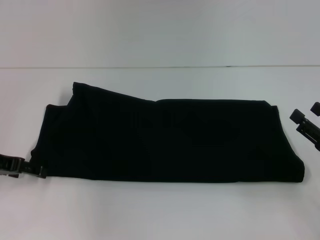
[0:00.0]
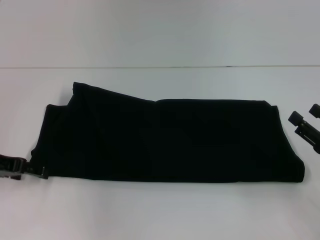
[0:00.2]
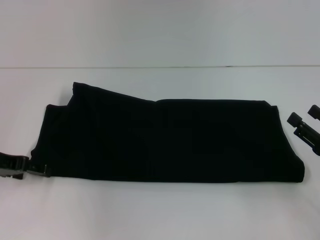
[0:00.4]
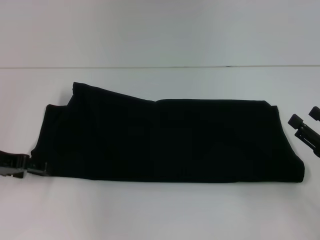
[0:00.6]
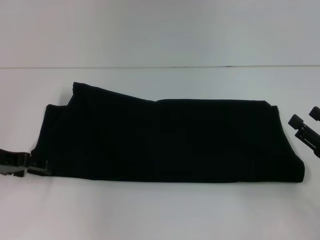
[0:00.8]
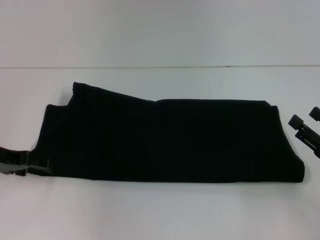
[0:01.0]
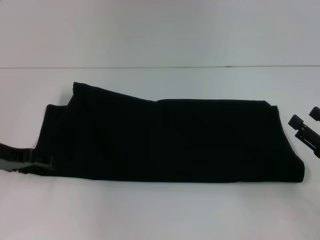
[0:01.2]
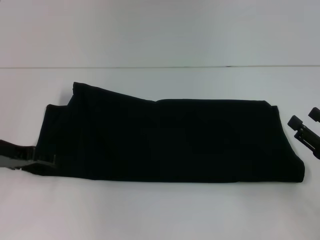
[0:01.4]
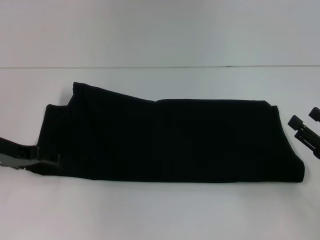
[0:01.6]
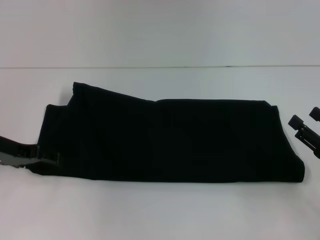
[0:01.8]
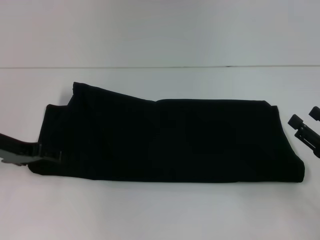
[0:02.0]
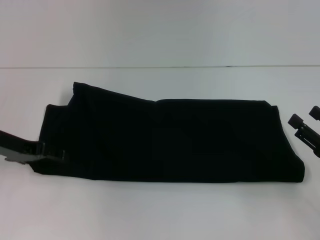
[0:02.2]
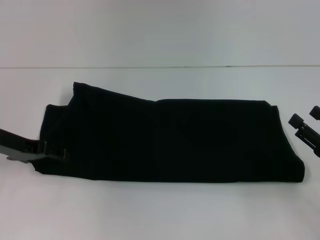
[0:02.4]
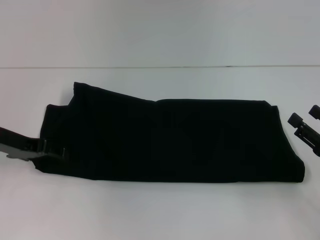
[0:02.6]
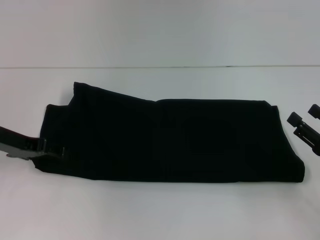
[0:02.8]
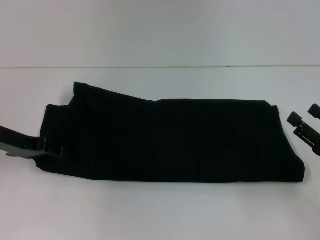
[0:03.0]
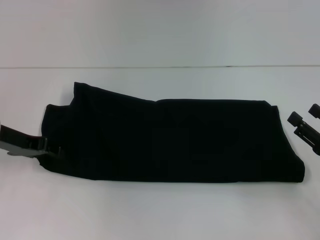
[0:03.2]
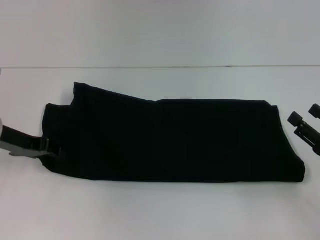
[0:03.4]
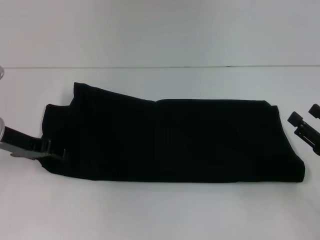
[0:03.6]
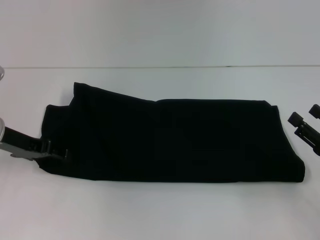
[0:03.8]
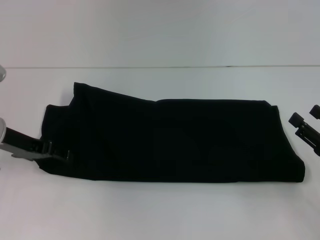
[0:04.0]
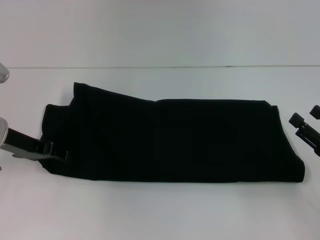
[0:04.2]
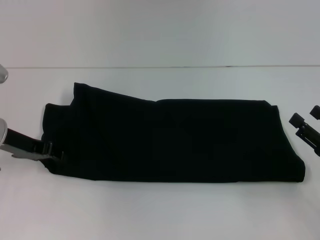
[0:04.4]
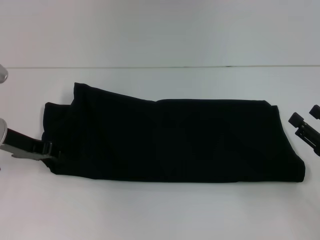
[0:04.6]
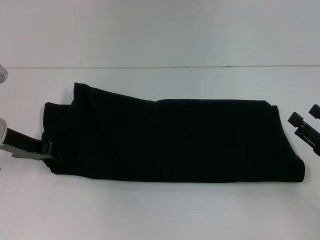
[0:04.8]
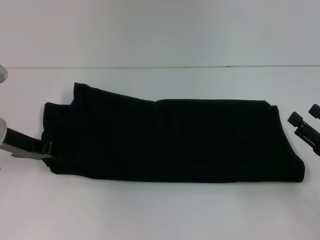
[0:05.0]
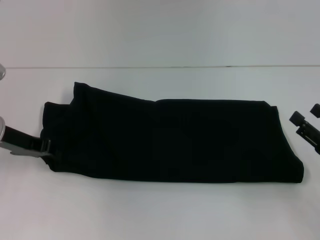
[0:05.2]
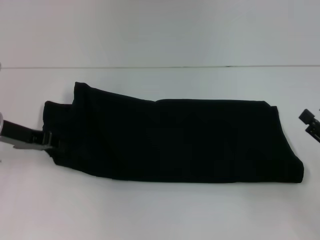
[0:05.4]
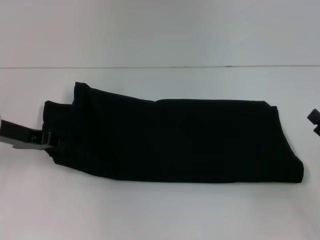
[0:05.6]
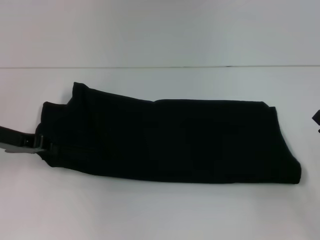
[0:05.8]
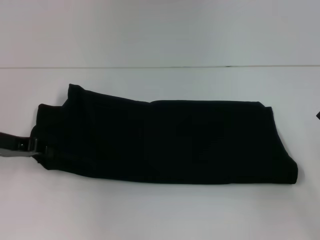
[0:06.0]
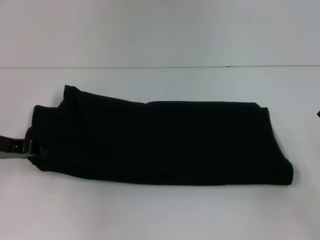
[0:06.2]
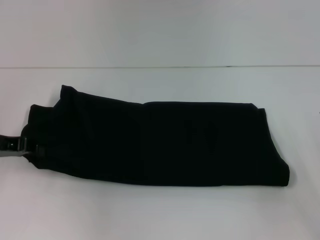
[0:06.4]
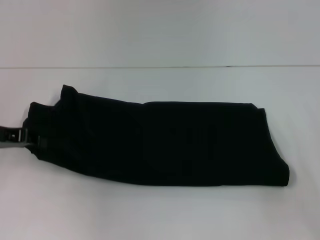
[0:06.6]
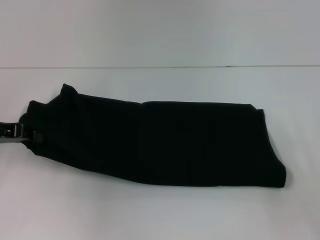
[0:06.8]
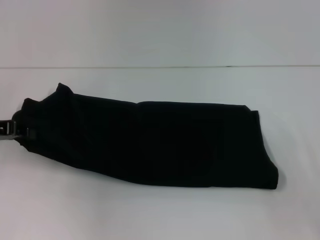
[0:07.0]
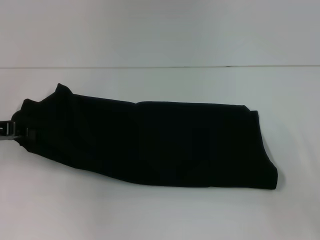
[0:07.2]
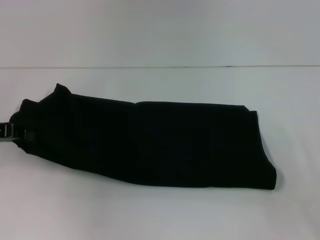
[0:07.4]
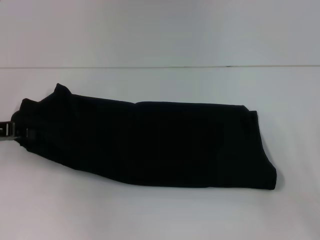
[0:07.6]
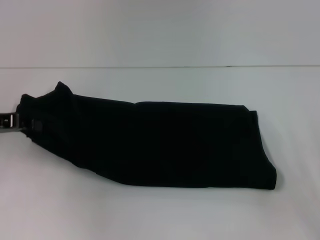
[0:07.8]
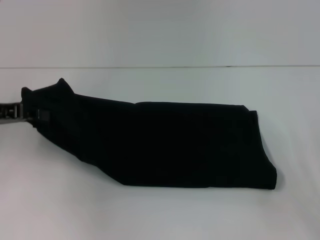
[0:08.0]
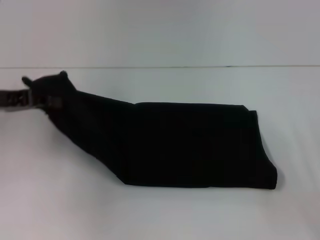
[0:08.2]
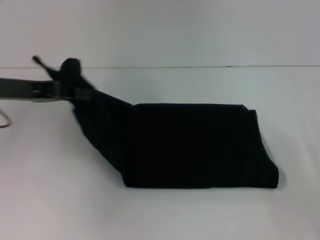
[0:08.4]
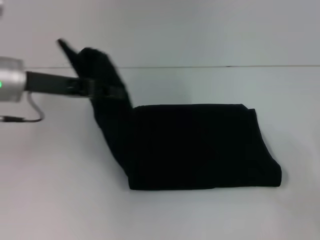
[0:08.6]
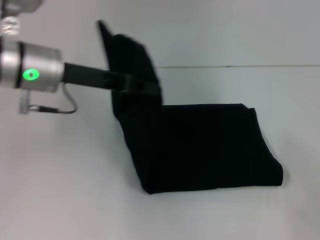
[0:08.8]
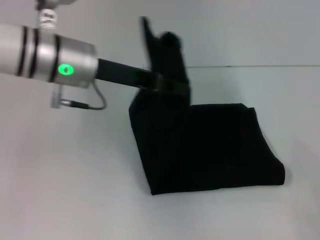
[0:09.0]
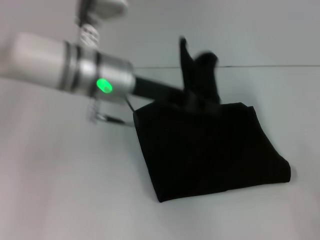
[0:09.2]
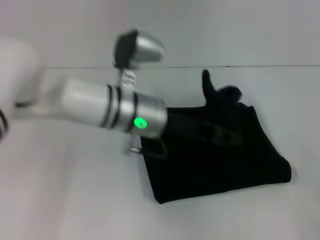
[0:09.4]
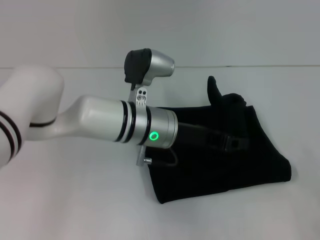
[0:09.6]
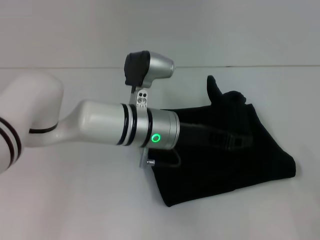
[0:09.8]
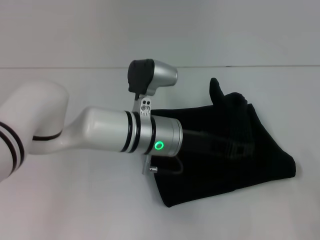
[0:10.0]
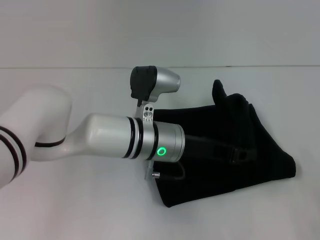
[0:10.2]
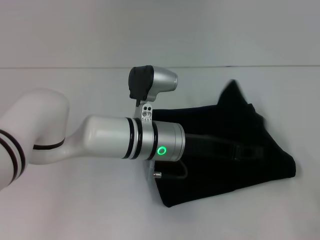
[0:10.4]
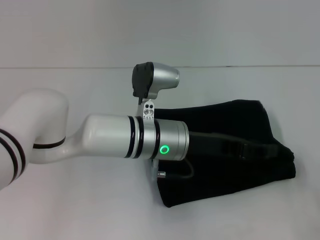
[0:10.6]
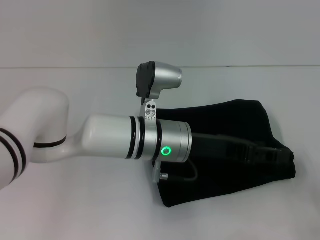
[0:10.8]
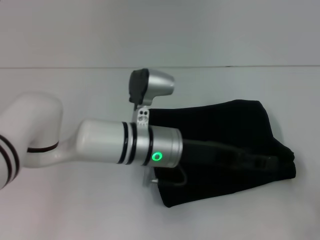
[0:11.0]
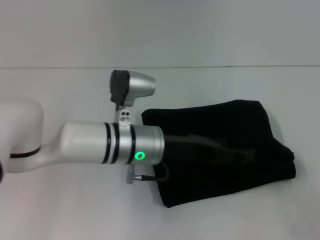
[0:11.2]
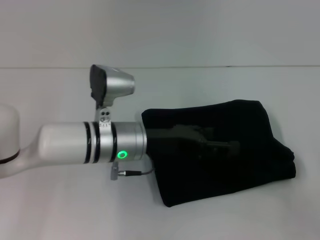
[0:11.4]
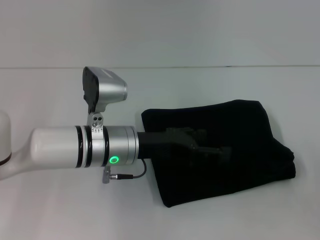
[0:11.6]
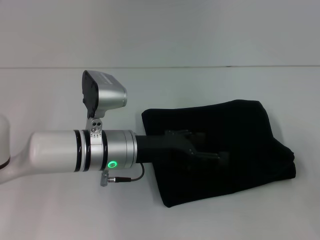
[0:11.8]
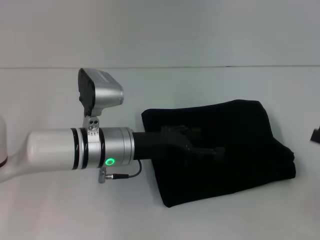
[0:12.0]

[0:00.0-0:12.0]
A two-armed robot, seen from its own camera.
Step, 0:00.0 to 0:10.8: Fold the clothes with your left hand.
0:00.0 to 0:03.0: There are only small adjustments of the grippers.
0:03.0 to 0:04.4: Neither gripper changes place.
0:04.4 to 0:06.0: The left gripper closes up.
0:06.0 to 0:07.6: The grippers make only small movements.
0:07.6 to 0:09.0: The right gripper goes approximately 5 cm backward, and closes, while the left gripper moves to the right, approximately 20 cm.
0:09.0 to 0:10.4: The left gripper goes roughly 15 cm downward and to the right.
0:10.4 to 0:12.0: The right gripper shifts about 10 cm upward and forward, and opens. The left gripper travels to the left by approximately 5 cm, and opens its fingers.

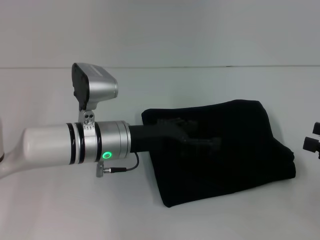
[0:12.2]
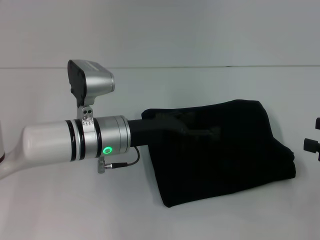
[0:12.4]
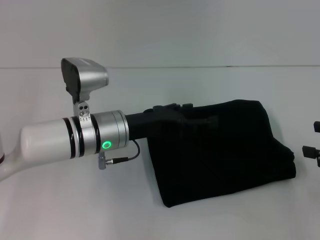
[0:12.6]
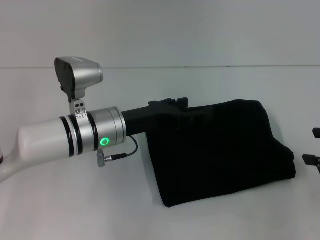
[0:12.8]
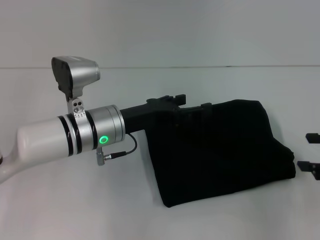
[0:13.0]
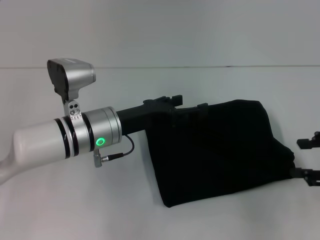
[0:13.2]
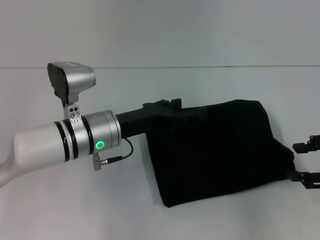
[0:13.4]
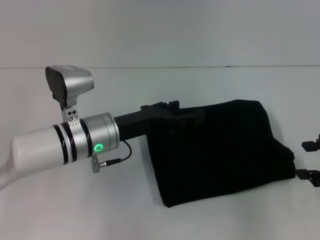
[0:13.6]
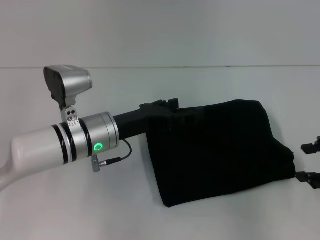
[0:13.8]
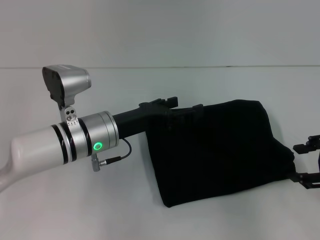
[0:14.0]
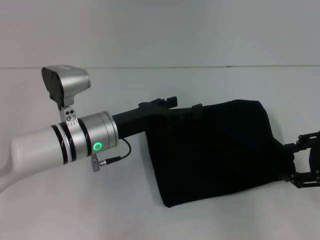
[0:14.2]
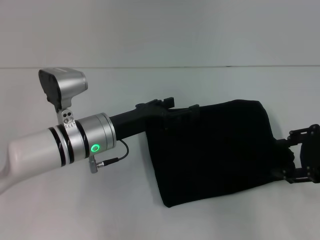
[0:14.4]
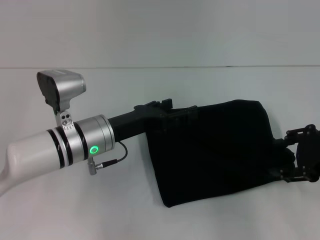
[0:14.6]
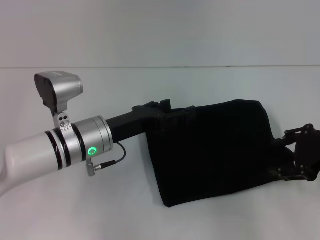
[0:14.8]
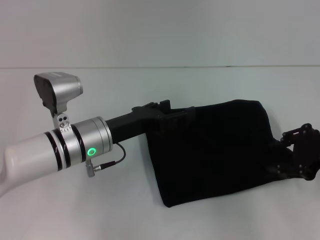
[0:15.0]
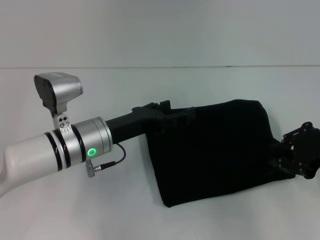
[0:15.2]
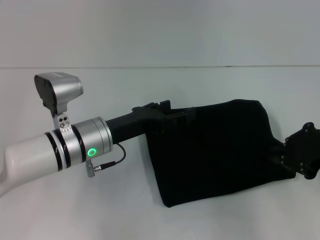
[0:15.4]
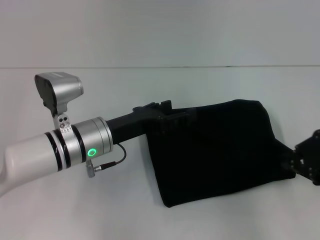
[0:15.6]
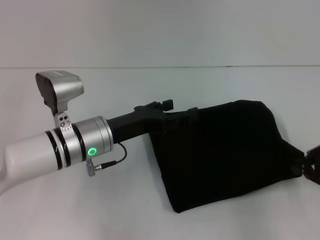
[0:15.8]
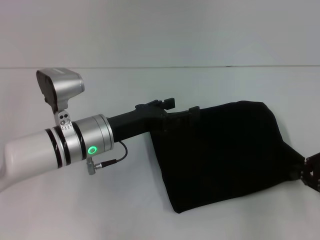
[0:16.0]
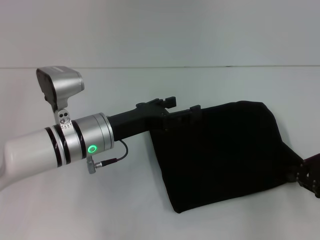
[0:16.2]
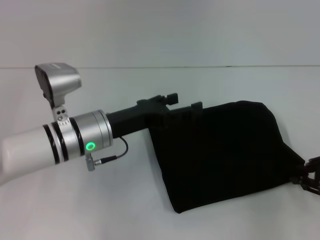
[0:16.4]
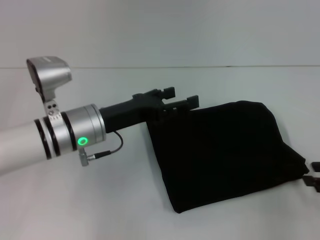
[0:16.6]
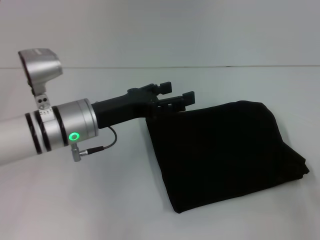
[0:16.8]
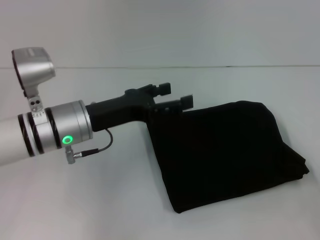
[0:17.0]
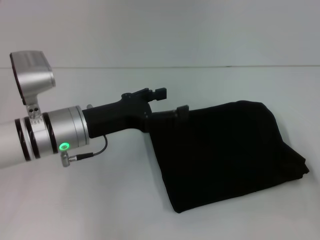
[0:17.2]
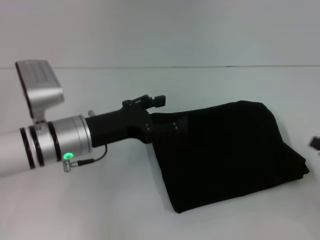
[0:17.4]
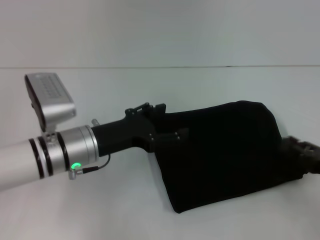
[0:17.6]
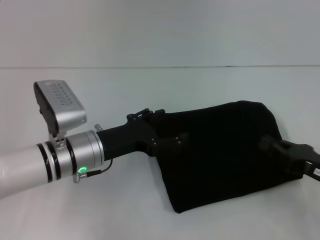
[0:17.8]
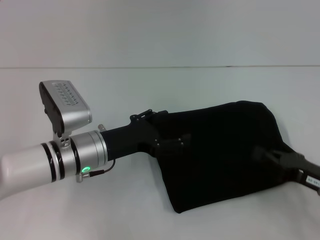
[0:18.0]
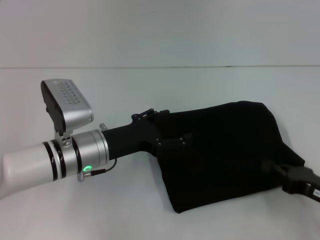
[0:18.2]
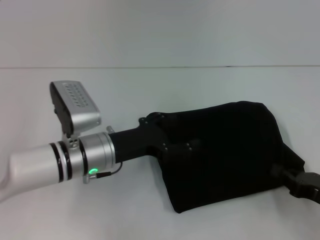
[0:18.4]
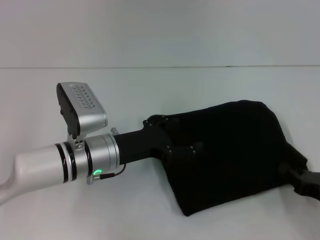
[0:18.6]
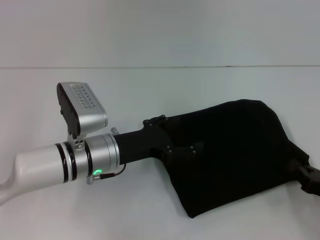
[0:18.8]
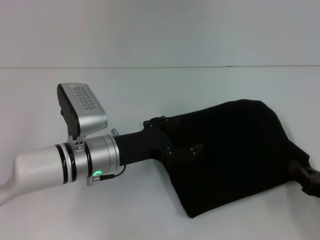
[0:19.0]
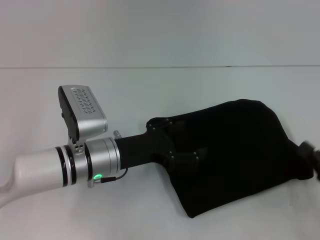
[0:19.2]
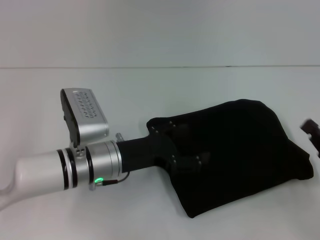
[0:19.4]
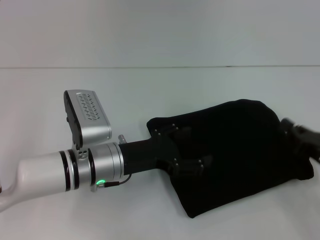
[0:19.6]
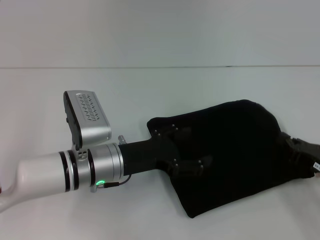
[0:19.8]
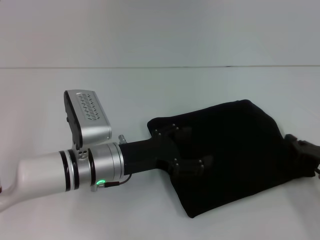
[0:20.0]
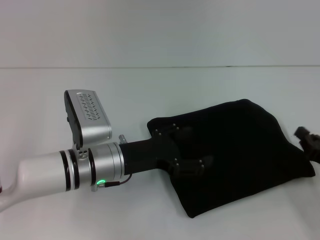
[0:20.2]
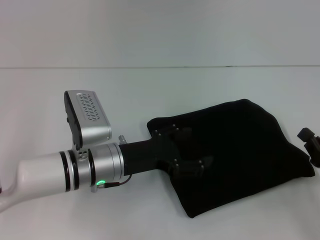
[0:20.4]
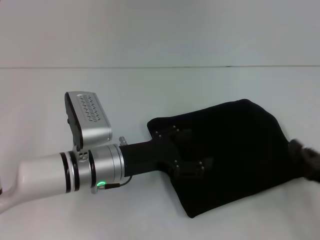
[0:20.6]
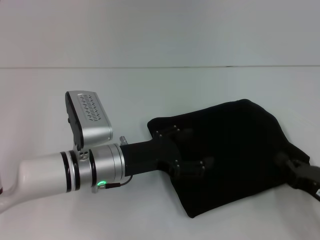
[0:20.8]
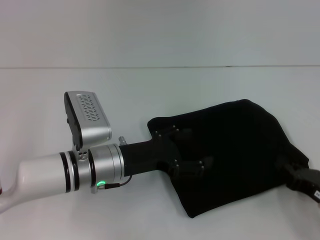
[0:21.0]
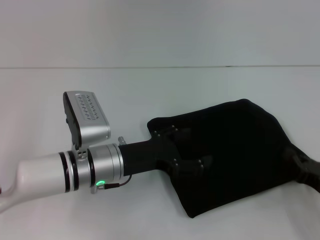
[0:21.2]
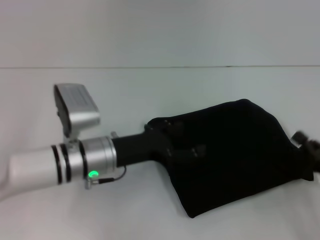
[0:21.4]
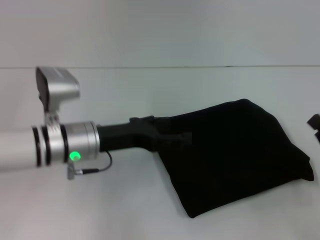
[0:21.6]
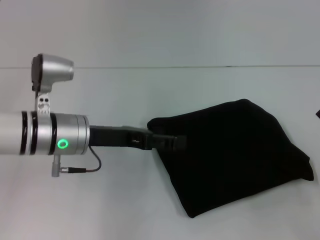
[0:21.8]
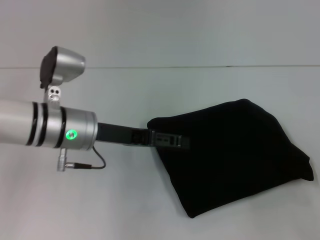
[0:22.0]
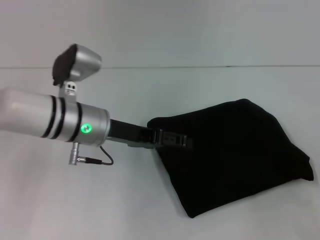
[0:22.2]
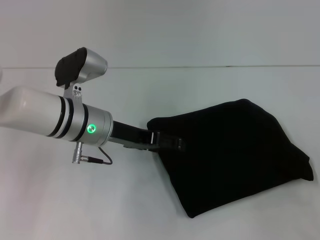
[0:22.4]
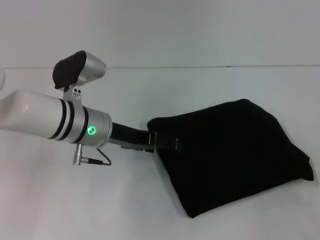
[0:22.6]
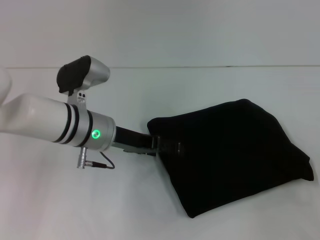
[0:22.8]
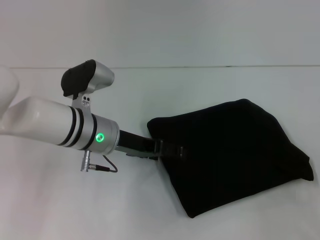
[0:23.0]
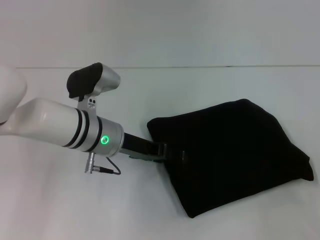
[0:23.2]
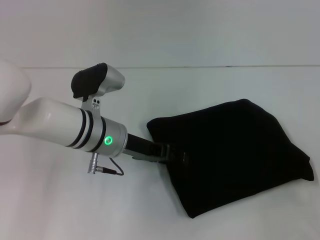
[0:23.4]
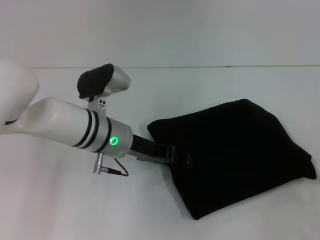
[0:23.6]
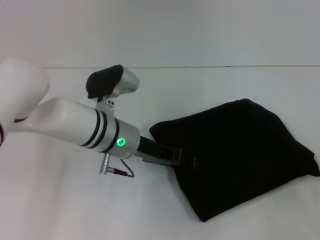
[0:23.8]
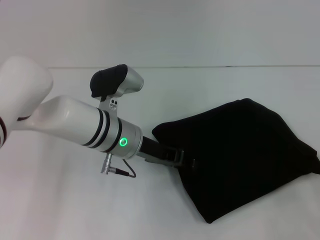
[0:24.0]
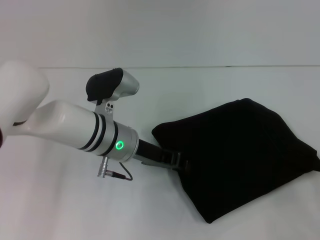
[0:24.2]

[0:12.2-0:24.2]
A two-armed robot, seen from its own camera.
0:12.2 to 0:13.8: The right gripper heads upward, covering roughly 5 cm.
0:13.8 to 0:15.2: The right gripper shifts by roughly 5 cm.
0:15.2 to 0:16.6: The right gripper shifts roughly 5 cm to the right.
0:16.6 to 0:18.2: The right gripper goes roughly 10 cm downward, and closes.
0:19.8 to 0:21.2: The grippers make only small movements.
0:21.2 to 0:22.6: The left gripper goes some 5 cm forward and upward. The right gripper shifts by about 5 cm.
0:22.6 to 0:24.2: The left gripper closes its fingers.
